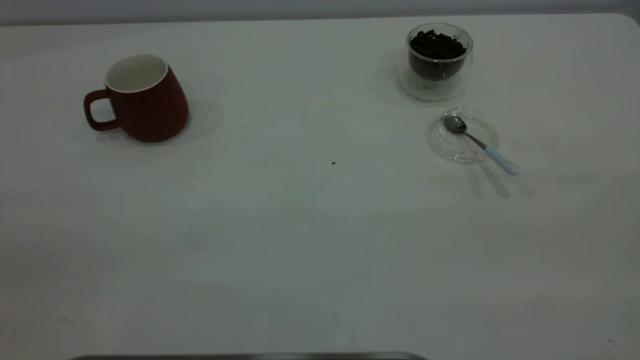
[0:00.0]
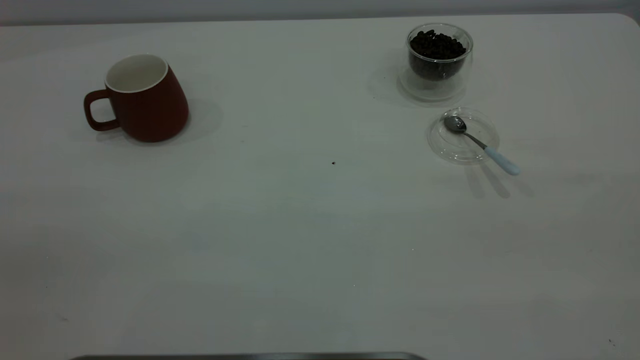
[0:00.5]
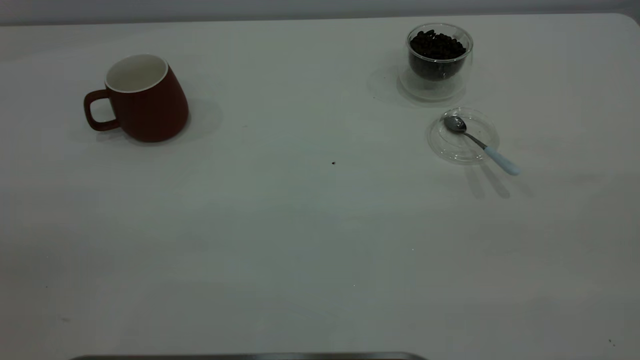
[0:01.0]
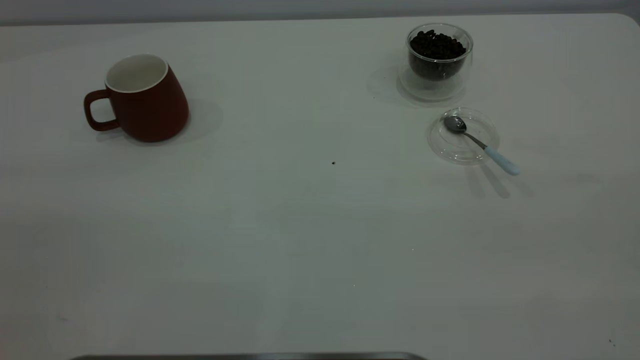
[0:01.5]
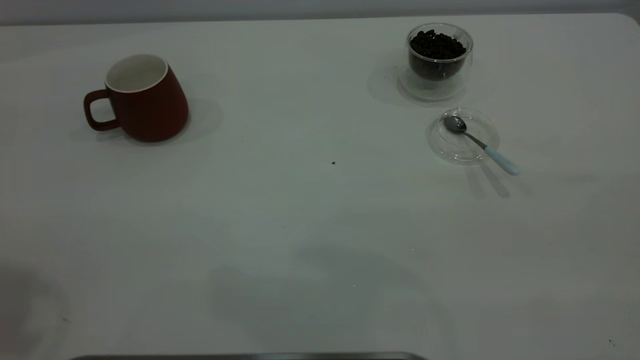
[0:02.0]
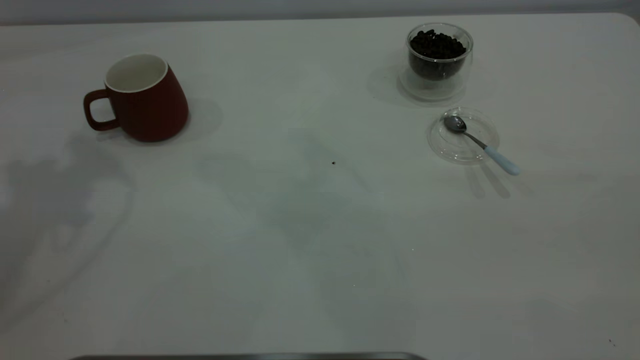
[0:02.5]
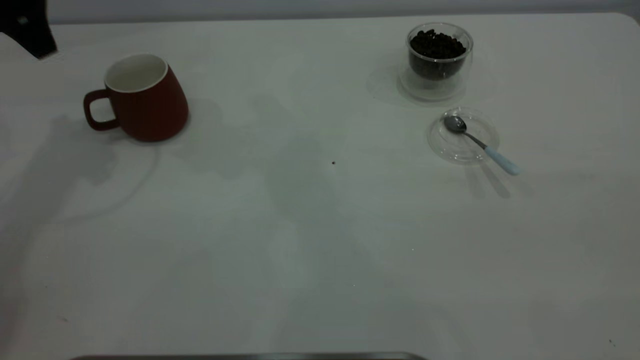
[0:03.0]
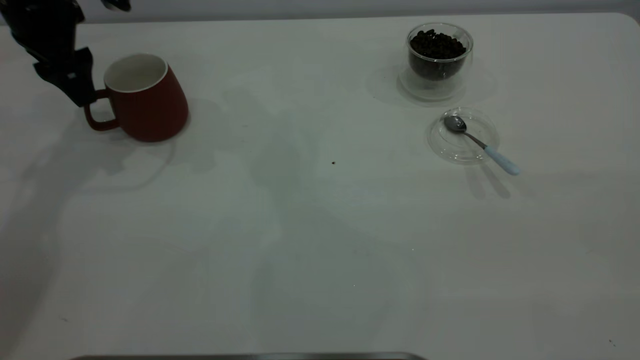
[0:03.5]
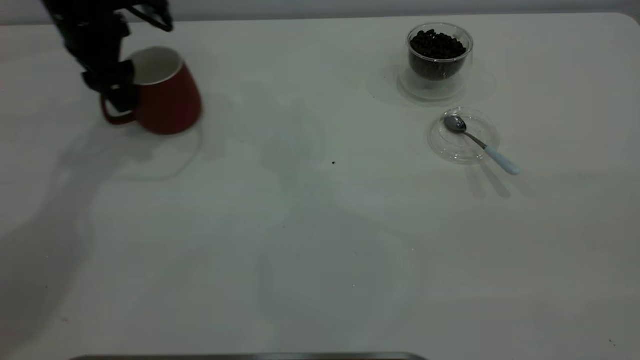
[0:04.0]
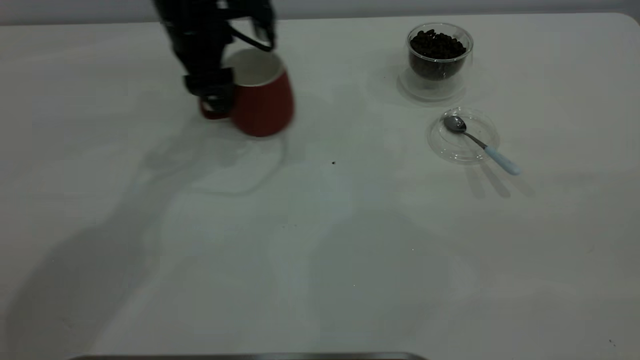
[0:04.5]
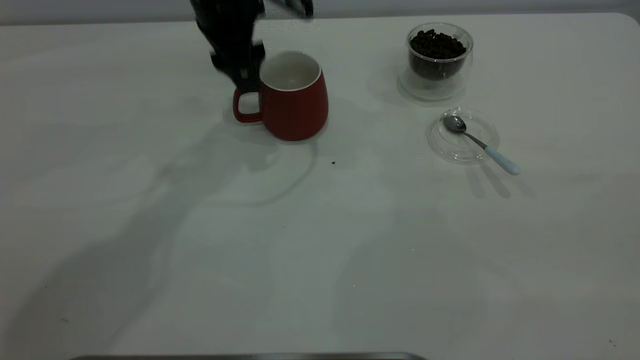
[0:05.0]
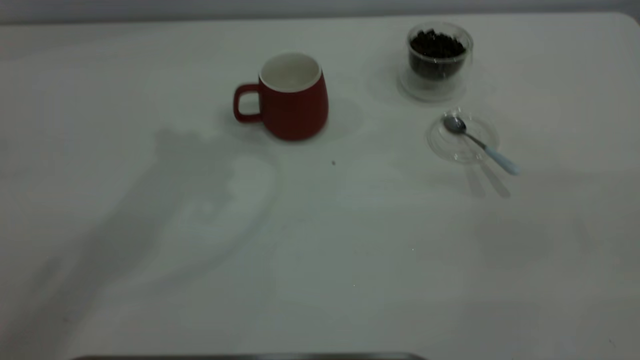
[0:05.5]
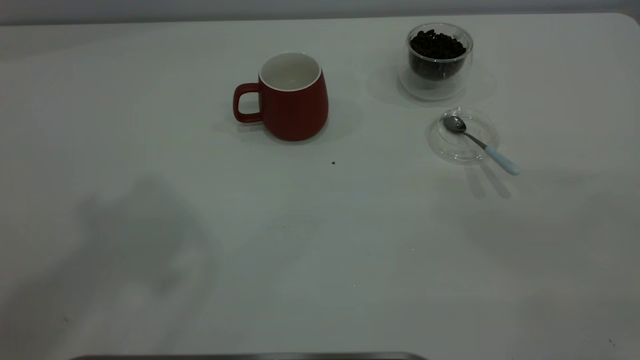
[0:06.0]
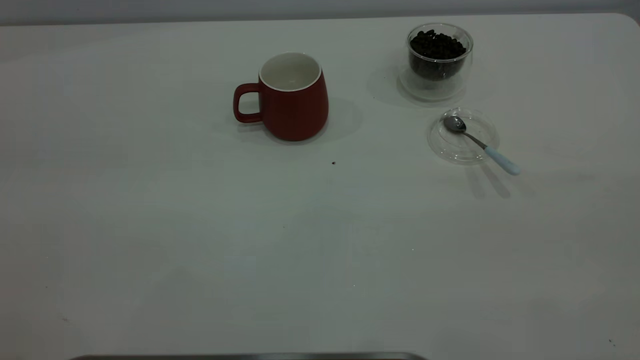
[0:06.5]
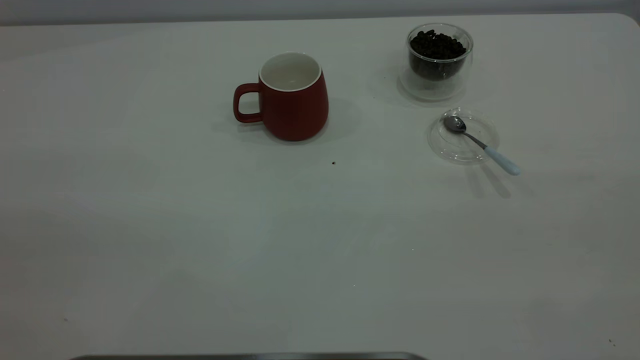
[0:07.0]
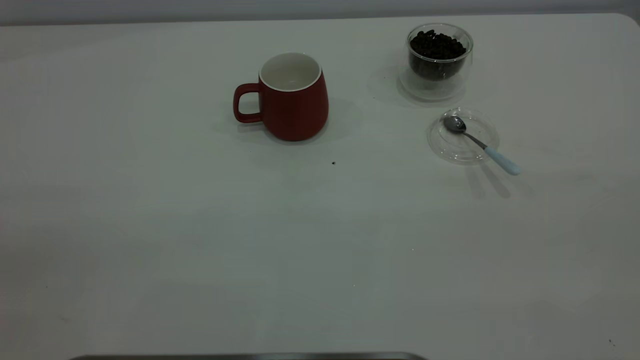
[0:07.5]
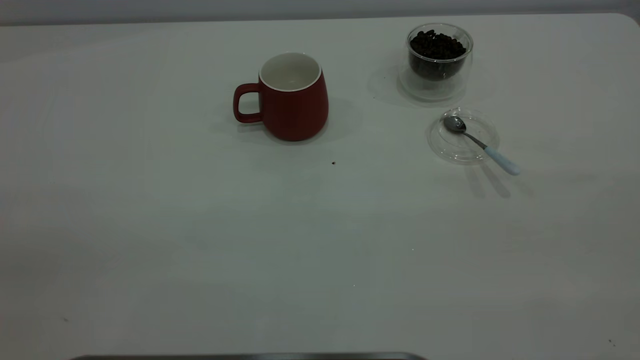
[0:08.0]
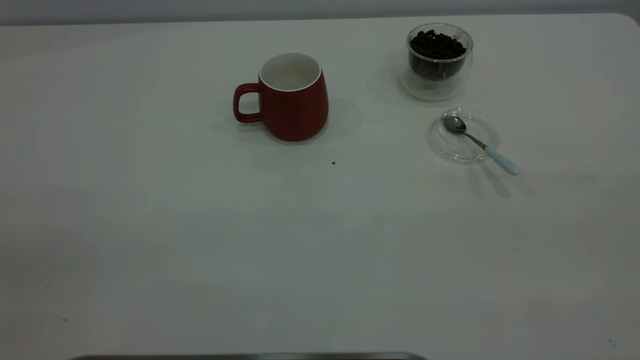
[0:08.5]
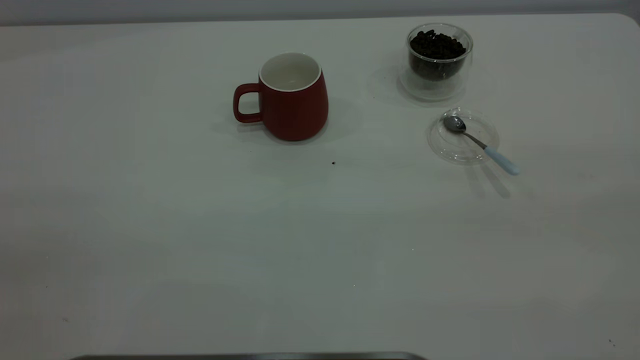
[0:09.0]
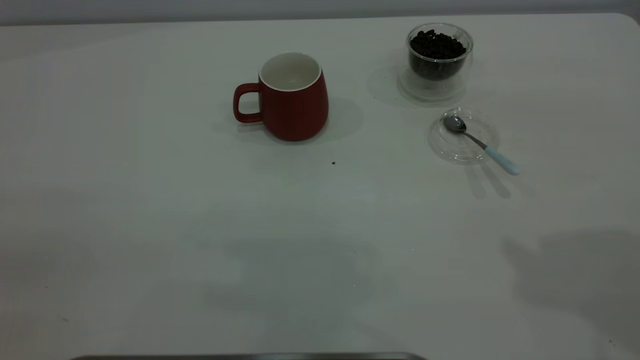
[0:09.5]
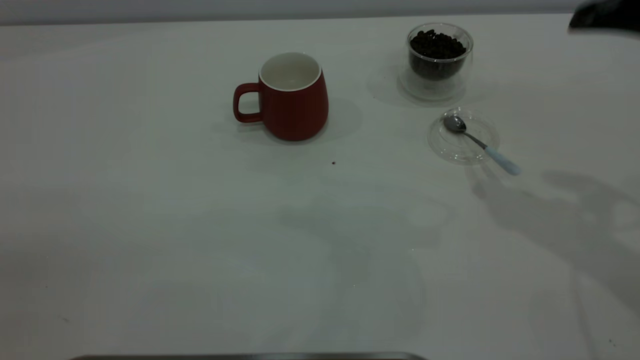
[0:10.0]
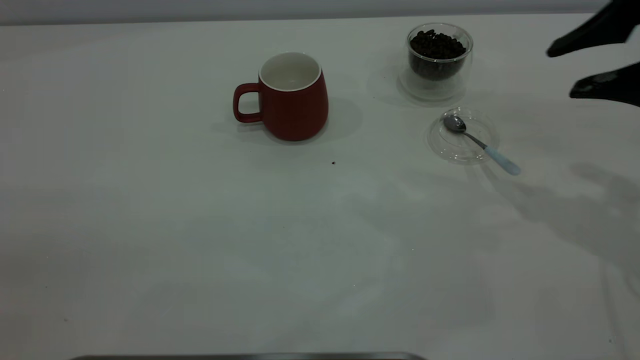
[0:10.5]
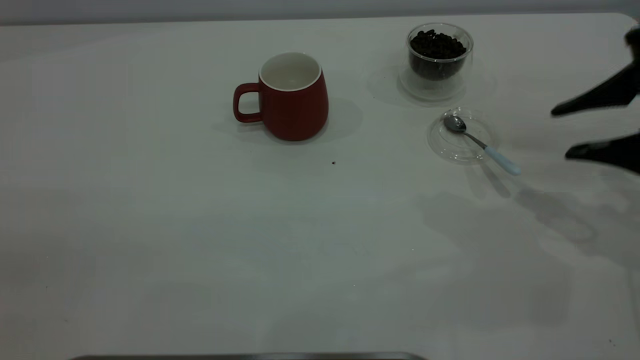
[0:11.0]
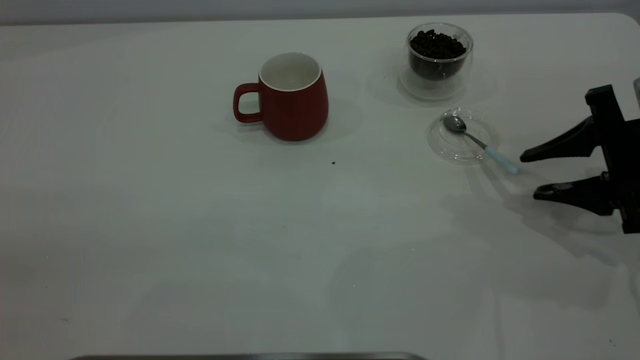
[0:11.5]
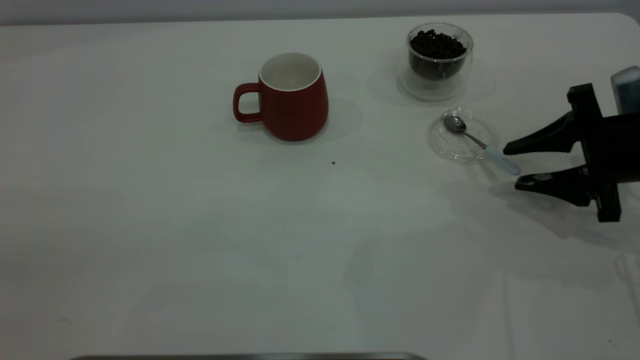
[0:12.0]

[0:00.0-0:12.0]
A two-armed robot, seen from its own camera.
Task of the whole recording: the left gripper place the red cup in the center of the table, the right gripper take the blue spoon from the cup lid and scoop out the coffee beans from the coffee cup and put them into the red cup, the right gripper put the spoon back into the cup lid.
Step, 0:00.0 to 0:05.0: Move the cup to the center of view.
0:02.0 to 0:04.0: The left gripper travels forward and downward by approximately 40 cm.
0:04.0 to 0:06.0: The left gripper is displaced upward and backward by about 50 cm.
0:08.0 to 0:10.0: The right gripper moves forward, approximately 25 cm.
0:10.0 to 0:12.0: The right gripper goes about 20 cm downward.

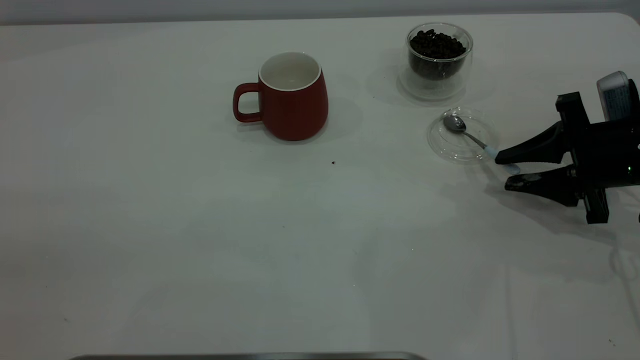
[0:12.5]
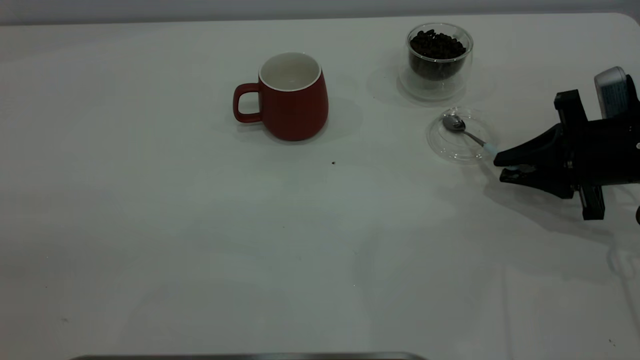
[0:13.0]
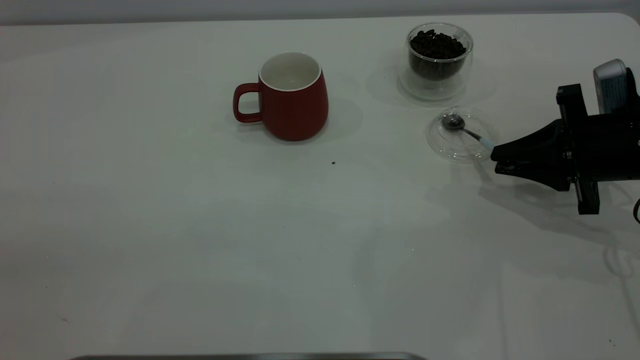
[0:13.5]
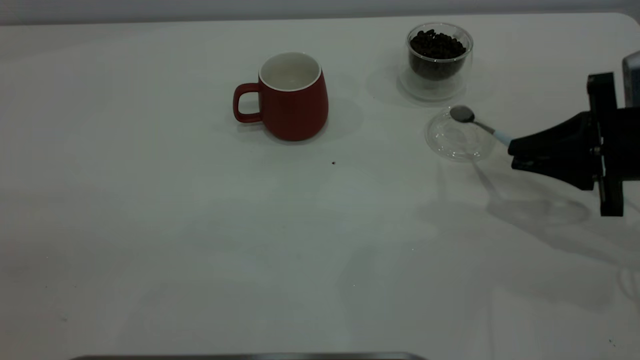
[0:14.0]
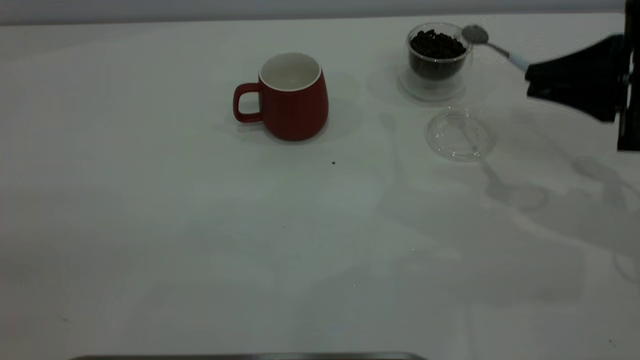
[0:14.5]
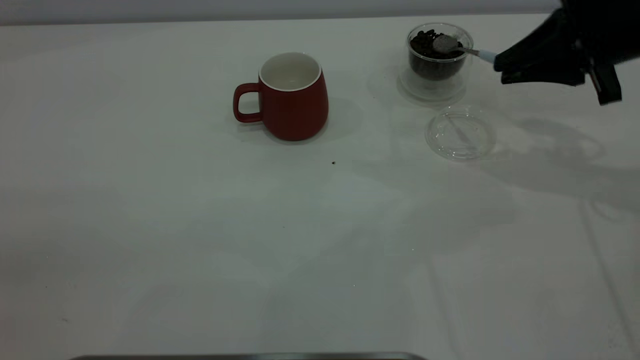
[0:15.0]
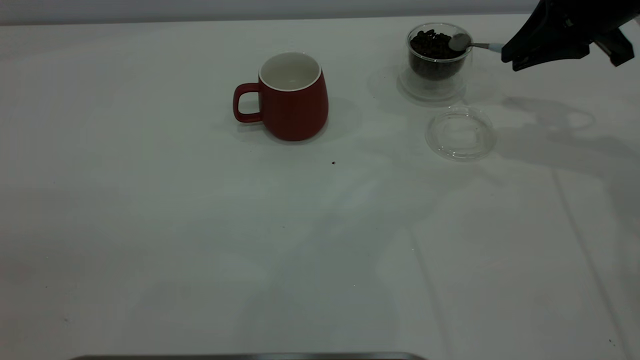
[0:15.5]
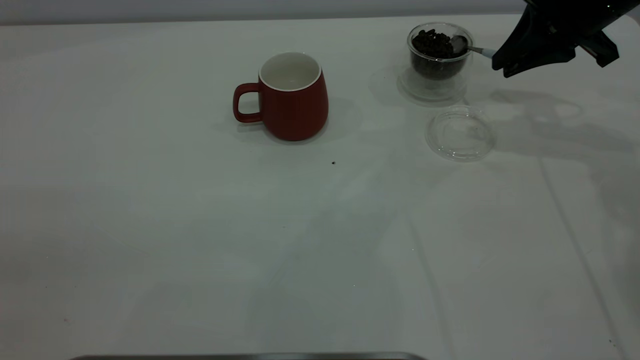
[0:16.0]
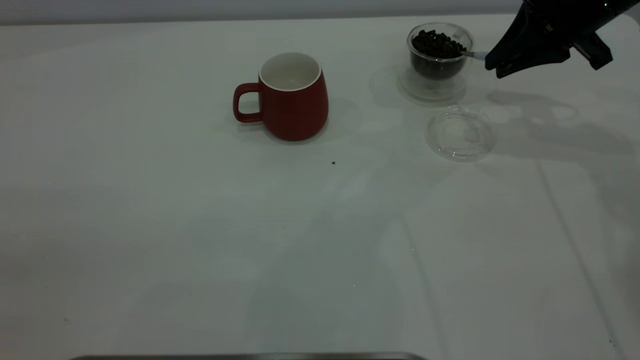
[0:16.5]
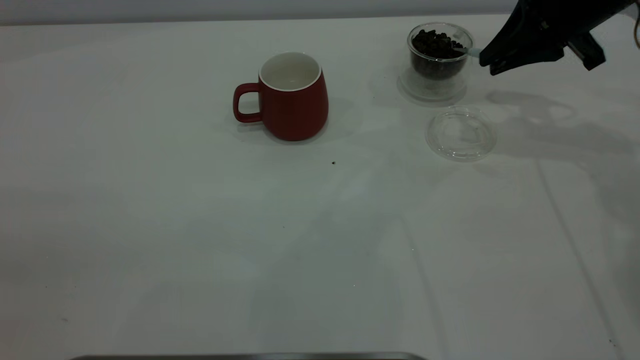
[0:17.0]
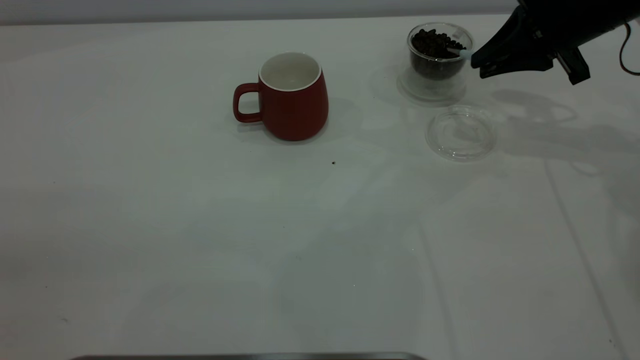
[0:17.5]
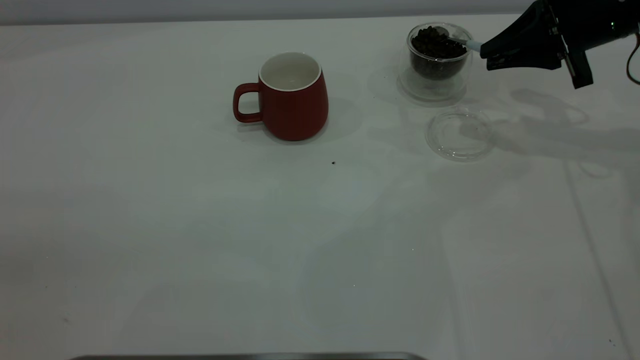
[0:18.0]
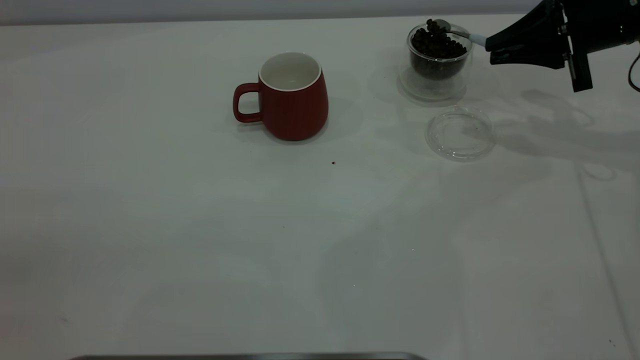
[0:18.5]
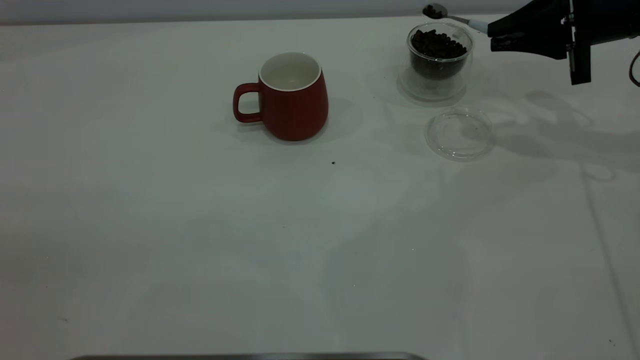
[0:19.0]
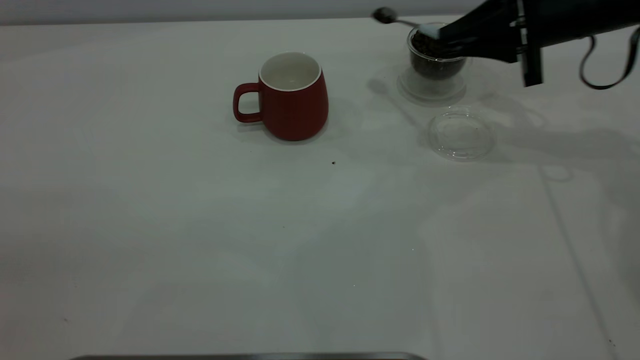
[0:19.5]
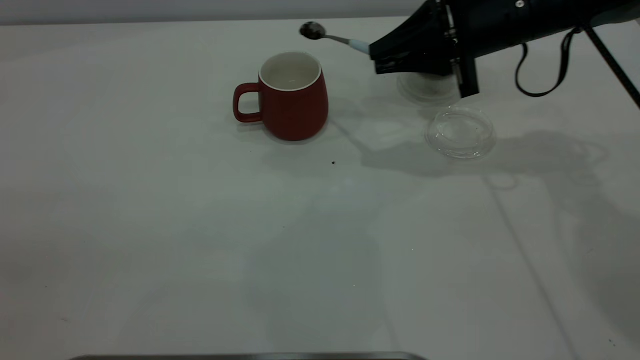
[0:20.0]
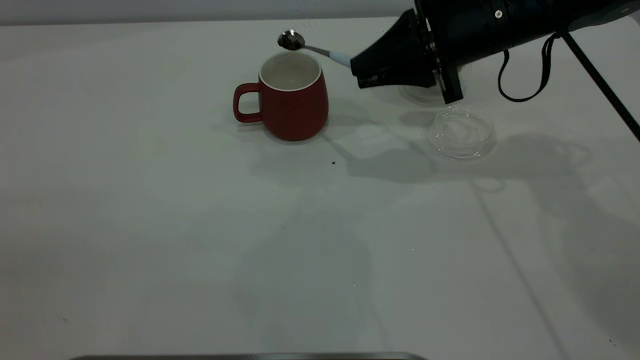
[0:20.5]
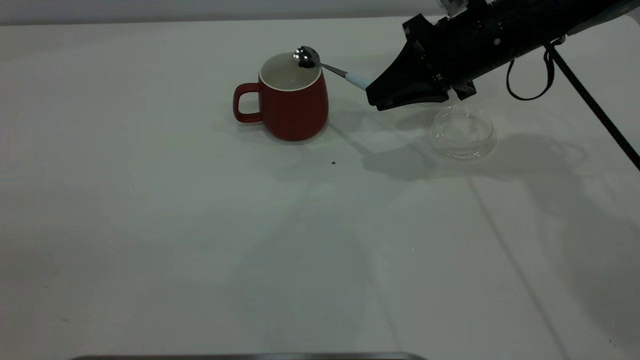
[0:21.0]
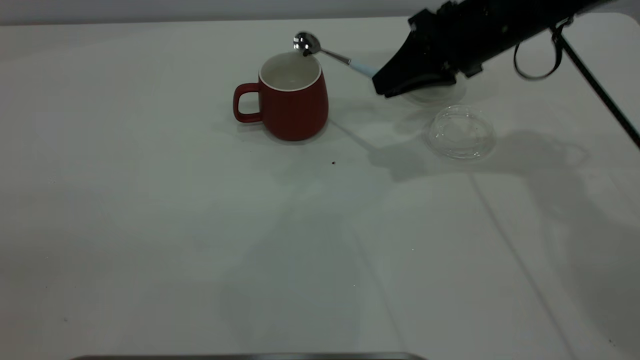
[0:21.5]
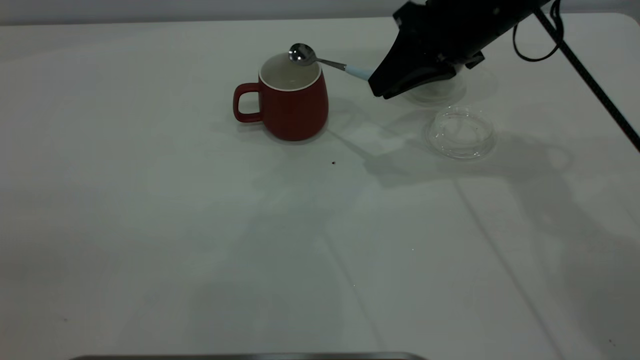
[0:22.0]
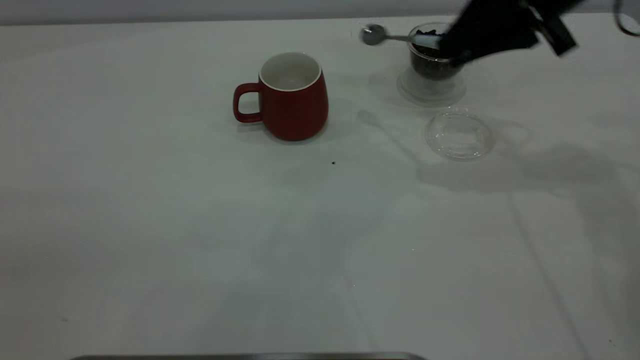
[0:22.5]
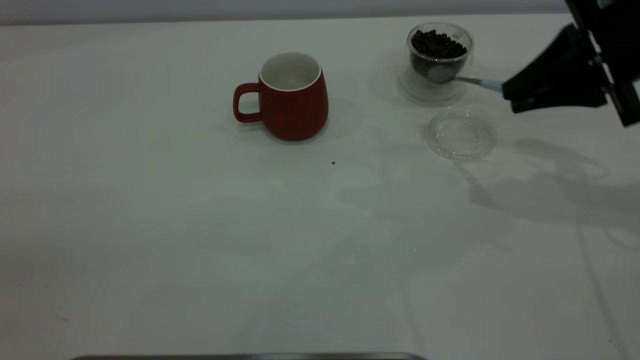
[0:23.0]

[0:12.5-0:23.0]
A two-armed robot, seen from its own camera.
Task of the whole recording: the left gripper place the red cup in the center of the table, the right gripper take the blue spoon from the cup lid and scoop out the coffee beans from the coffee cup and put them into the red cup, the right gripper put the spoon back into the cup lid.
Step, 0:14.5 to 0:22.0: Scoop a spoonful of beans into the cup.
0:12.5 to 0:14.5: The right gripper travels upward by roughly 10 cm, and closes up.
0:14.5 to 0:16.5: The right gripper travels forward by approximately 10 cm.
0:19.0 to 0:21.0: The right gripper is displaced to the left by approximately 15 cm.
0:21.0 to 0:23.0: The right gripper shifts approximately 15 cm to the right and backward.
